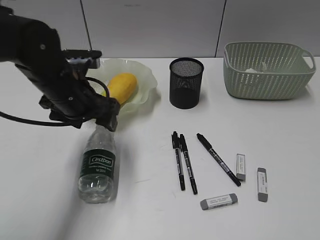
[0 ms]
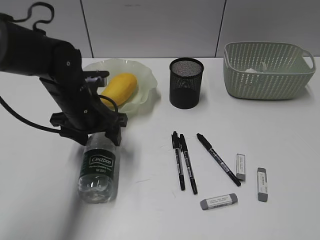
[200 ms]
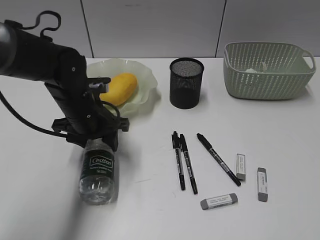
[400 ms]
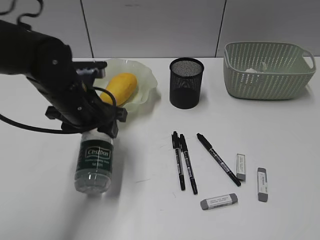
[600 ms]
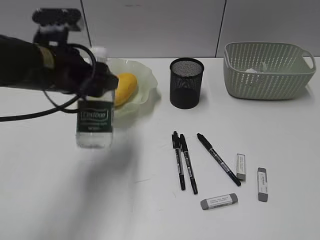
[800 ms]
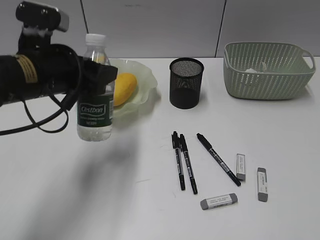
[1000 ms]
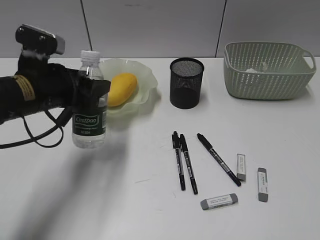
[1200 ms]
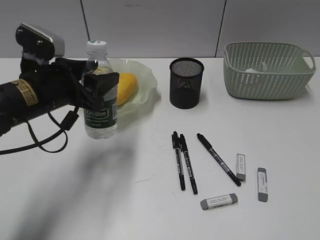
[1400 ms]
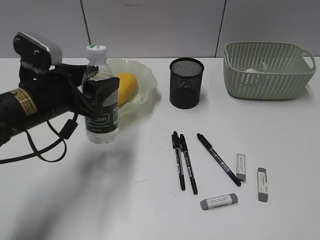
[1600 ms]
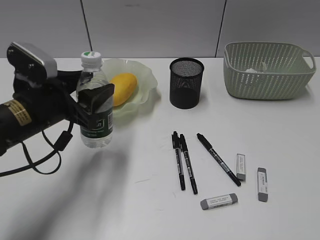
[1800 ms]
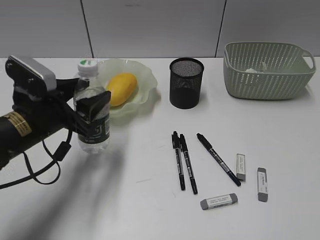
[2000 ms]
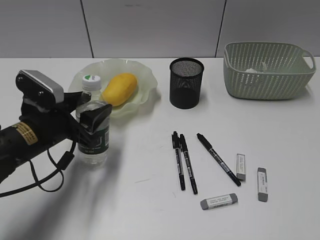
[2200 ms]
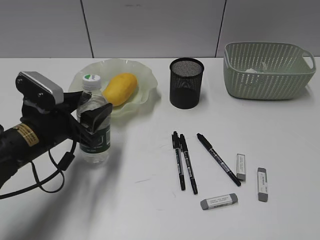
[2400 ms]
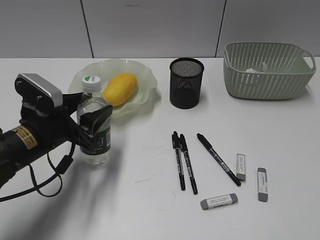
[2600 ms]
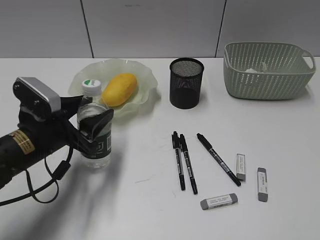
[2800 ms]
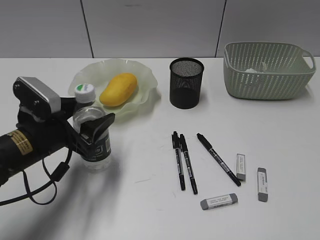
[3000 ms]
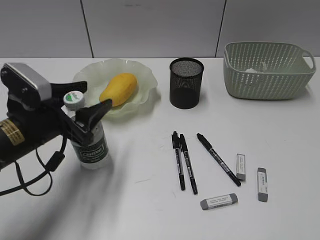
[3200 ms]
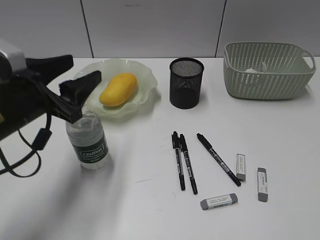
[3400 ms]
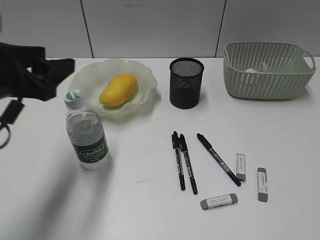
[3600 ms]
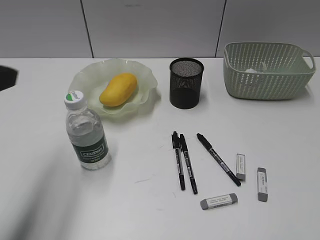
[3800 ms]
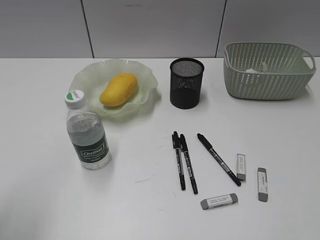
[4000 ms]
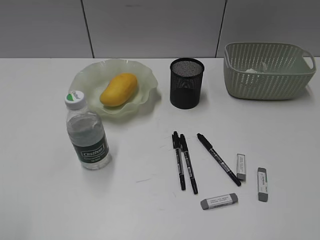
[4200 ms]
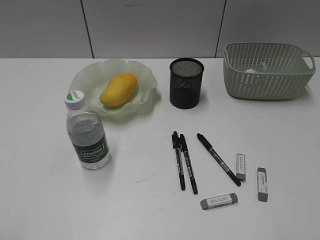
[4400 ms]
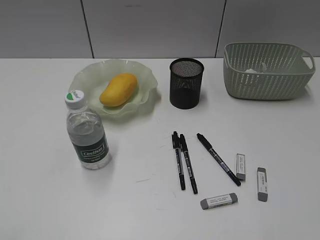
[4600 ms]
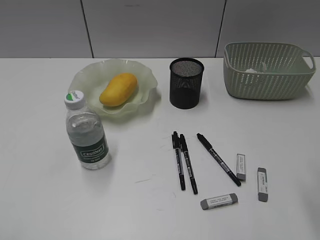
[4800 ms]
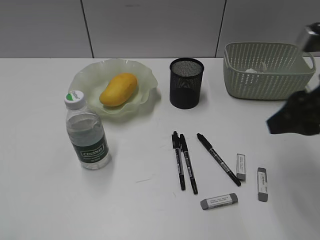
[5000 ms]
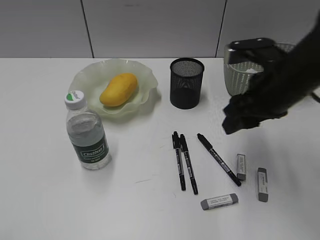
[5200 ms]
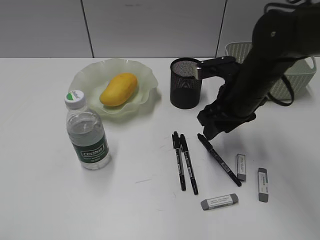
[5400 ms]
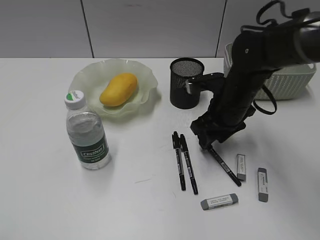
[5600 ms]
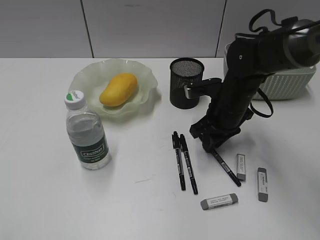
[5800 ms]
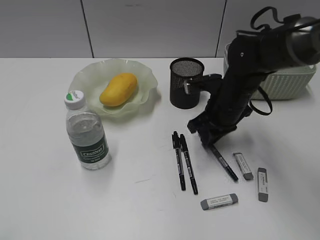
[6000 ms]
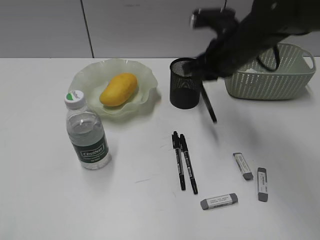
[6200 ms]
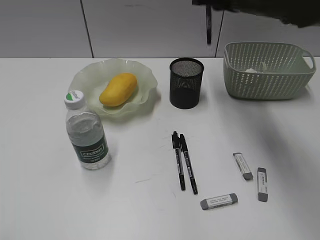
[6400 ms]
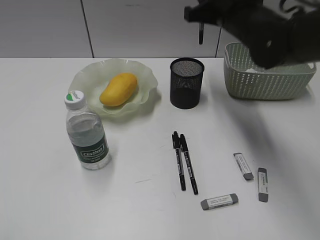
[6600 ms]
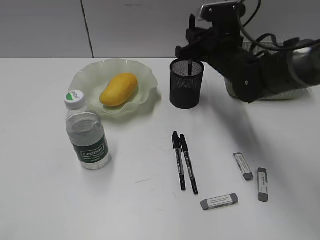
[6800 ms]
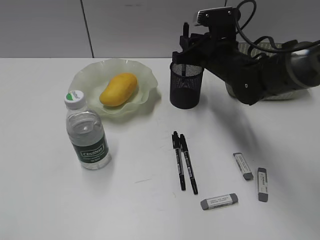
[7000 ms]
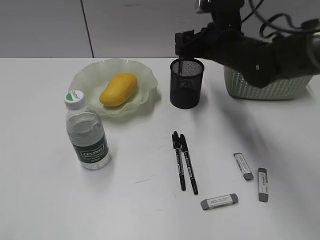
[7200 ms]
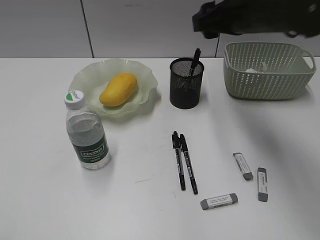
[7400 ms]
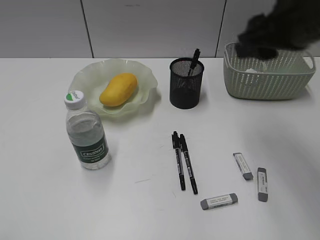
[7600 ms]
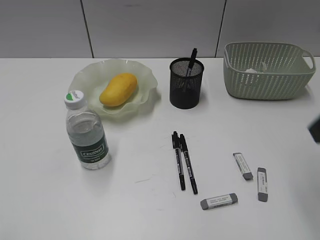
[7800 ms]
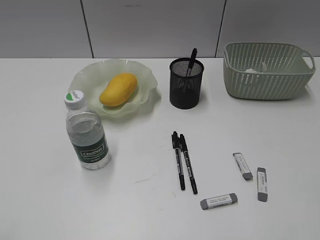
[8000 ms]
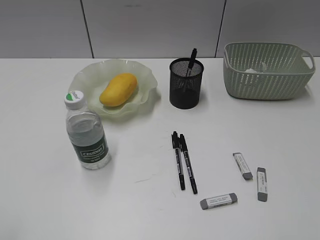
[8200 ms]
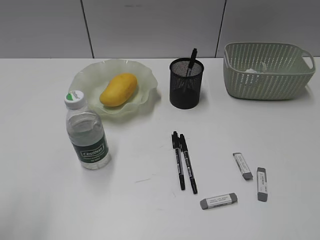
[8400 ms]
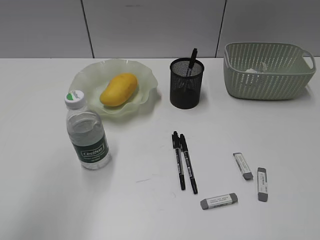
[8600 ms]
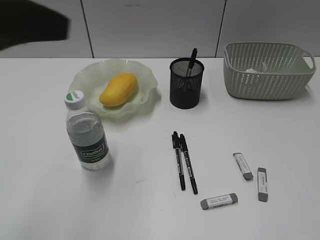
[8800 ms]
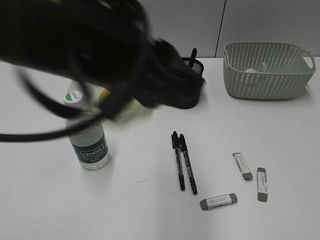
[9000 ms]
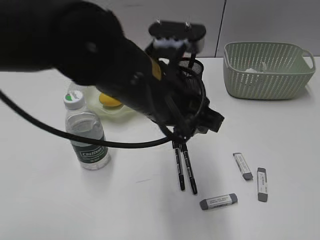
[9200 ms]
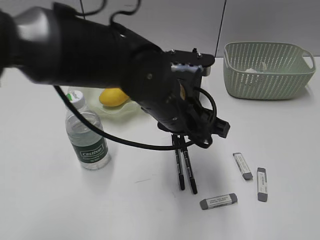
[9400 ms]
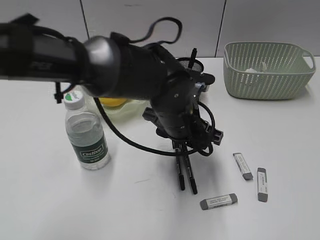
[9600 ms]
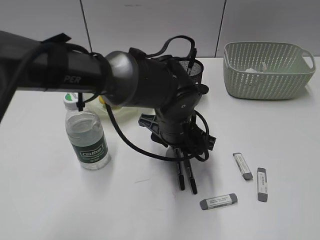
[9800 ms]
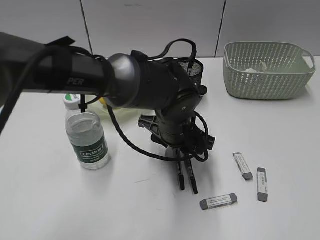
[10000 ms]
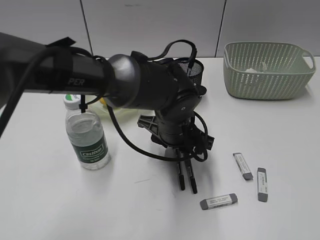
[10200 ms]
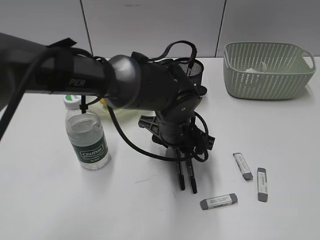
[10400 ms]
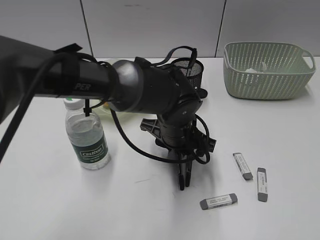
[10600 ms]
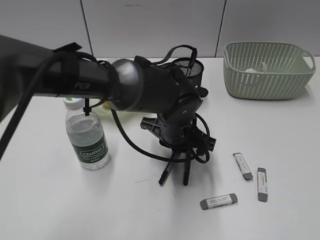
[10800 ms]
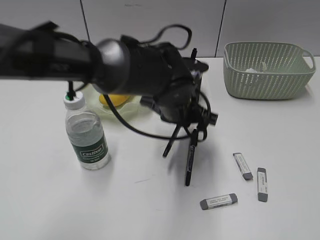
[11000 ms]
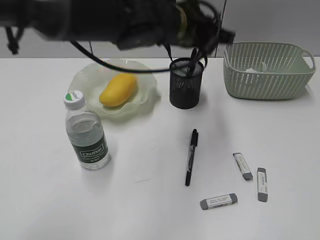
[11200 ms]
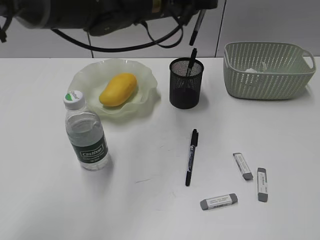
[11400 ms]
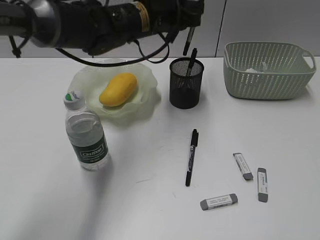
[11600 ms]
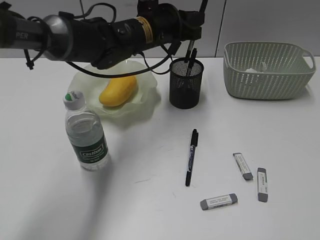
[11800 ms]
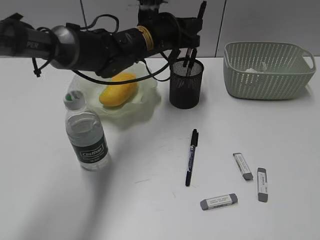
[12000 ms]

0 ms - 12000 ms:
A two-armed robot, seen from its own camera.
Step, 600 ms - 3200 ms: Stand the bottle with left gripper.
Step, 3400 ms - 5800 ms: Grasp the black pen with right gripper.
Step, 6000 ms - 7200 ms: Place the black pen in pen holder with right gripper.
Step, 7400 ms - 10800 ms: Grasp the black pen with left gripper.
0 ms - 1600 ms: The left gripper moves up and down over about 10 cm, changing direction 2 times, and closes its fingers.
1600 ms - 3000 ms: The left gripper heads downward, covering roughly 5 cm.
3000 ms - 4400 ms: The left gripper is displaced backward, upward and to the left by approximately 35 cm.
4400 ms - 6000 ms: The right gripper travels forward, to the left and downward by about 40 cm.
6000 ms - 7600 ms: The right gripper swings up and down, roughly 20 cm each way, with 2 reversals, and opens up.
7600 ms - 9000 ms: The right gripper travels backward and to the right by some 30 cm, while the left gripper shifts some 30 cm to the right and forward.
9000 ms - 10400 ms: The left gripper moves downward, forward and to the right, about 25 cm.
10400 ms - 12000 ms: The left gripper shifts roughly 15 cm forward and upward, and closes its fingers.

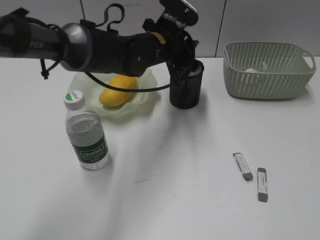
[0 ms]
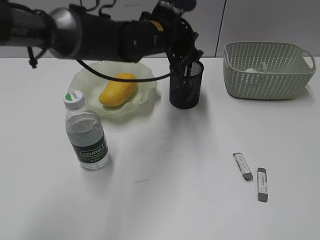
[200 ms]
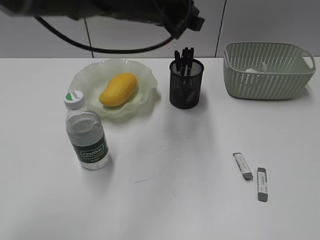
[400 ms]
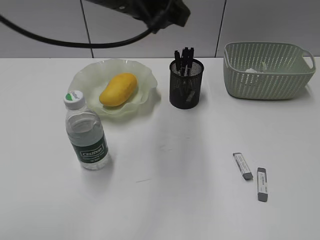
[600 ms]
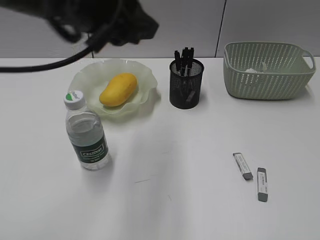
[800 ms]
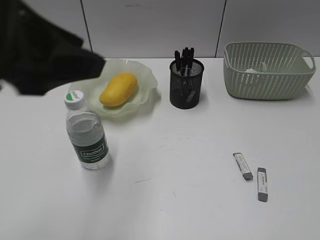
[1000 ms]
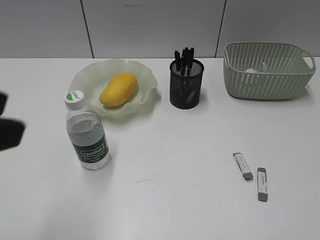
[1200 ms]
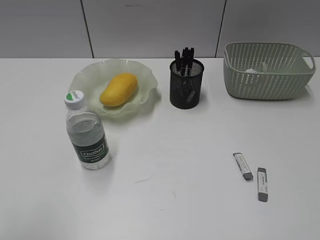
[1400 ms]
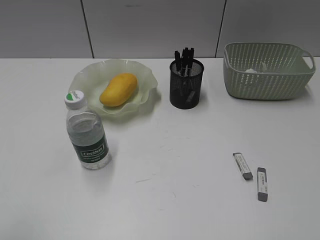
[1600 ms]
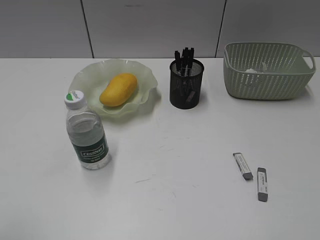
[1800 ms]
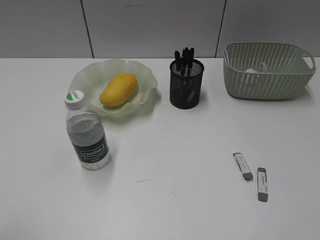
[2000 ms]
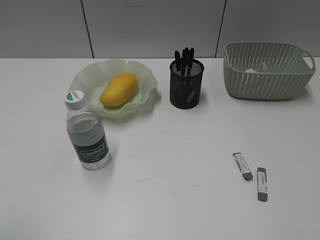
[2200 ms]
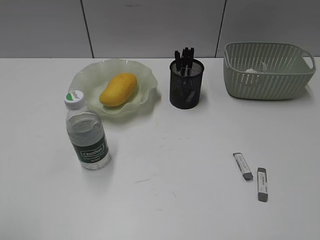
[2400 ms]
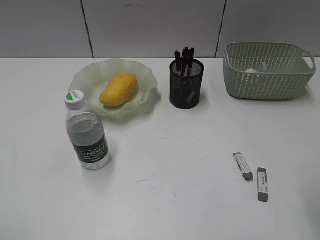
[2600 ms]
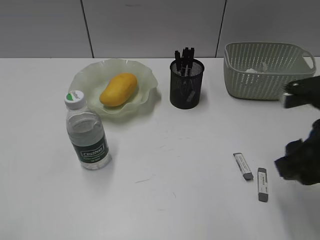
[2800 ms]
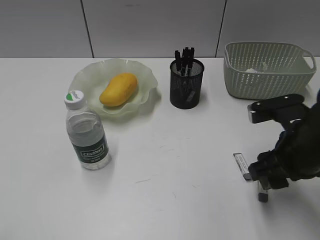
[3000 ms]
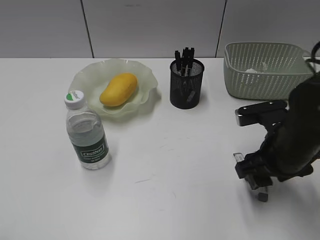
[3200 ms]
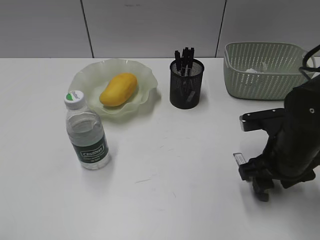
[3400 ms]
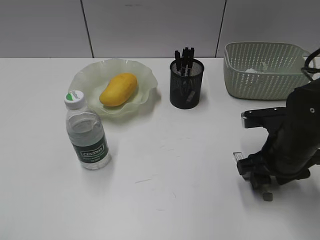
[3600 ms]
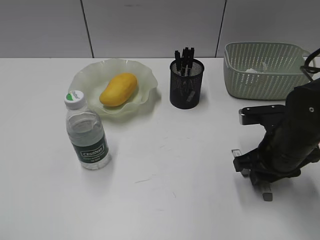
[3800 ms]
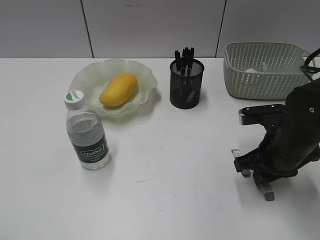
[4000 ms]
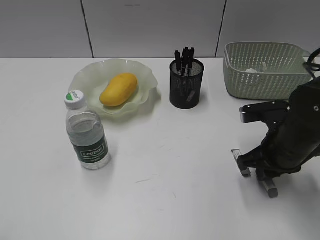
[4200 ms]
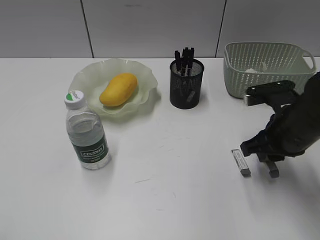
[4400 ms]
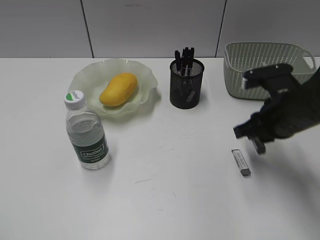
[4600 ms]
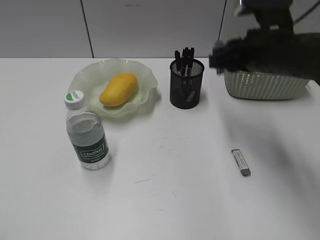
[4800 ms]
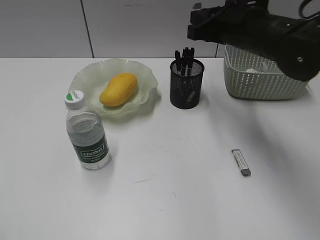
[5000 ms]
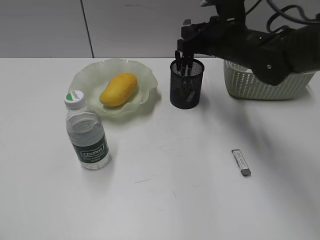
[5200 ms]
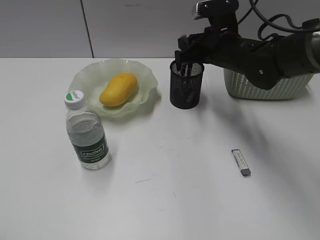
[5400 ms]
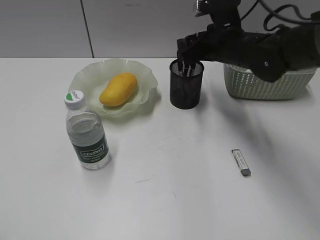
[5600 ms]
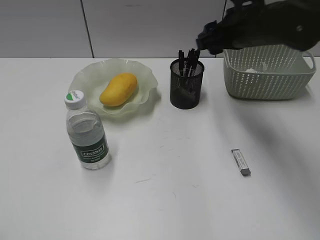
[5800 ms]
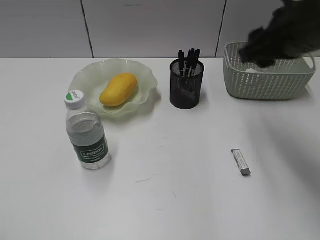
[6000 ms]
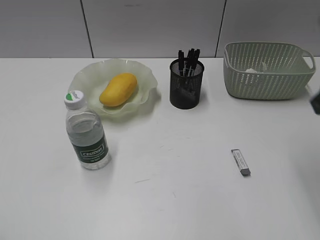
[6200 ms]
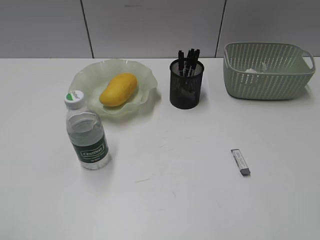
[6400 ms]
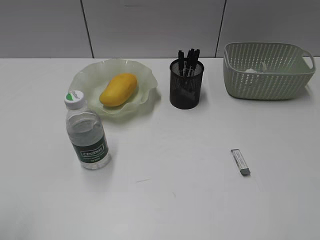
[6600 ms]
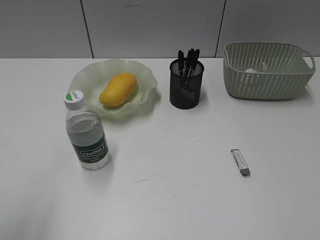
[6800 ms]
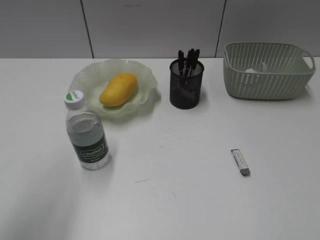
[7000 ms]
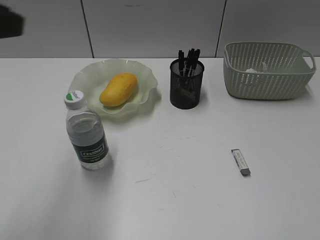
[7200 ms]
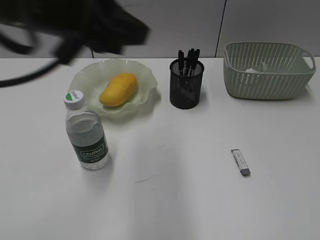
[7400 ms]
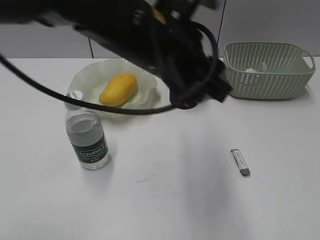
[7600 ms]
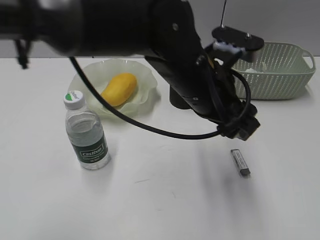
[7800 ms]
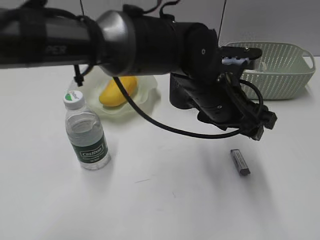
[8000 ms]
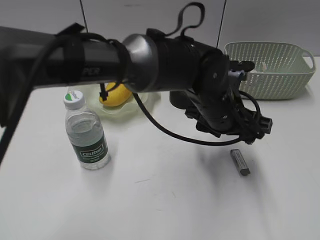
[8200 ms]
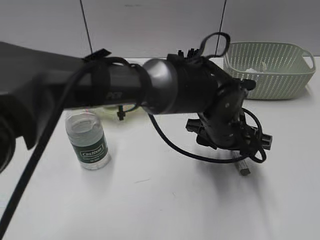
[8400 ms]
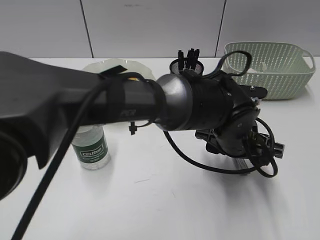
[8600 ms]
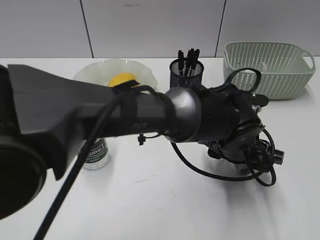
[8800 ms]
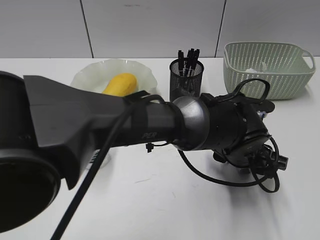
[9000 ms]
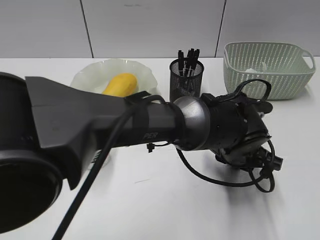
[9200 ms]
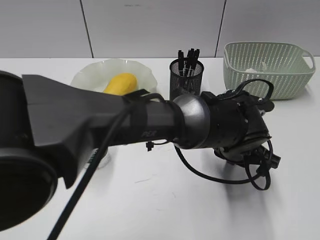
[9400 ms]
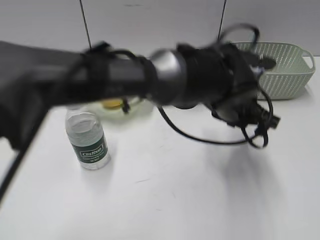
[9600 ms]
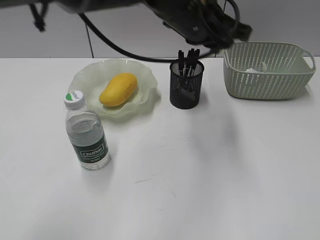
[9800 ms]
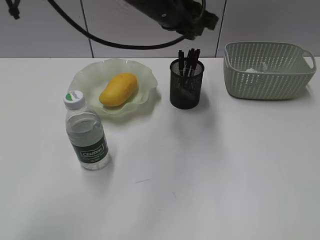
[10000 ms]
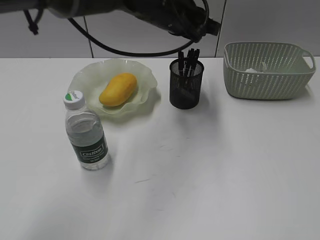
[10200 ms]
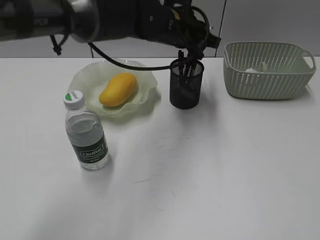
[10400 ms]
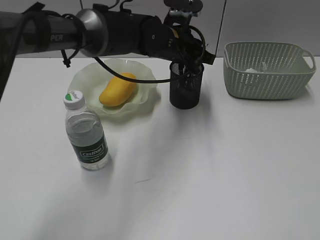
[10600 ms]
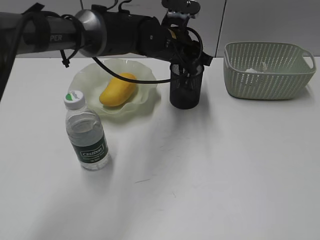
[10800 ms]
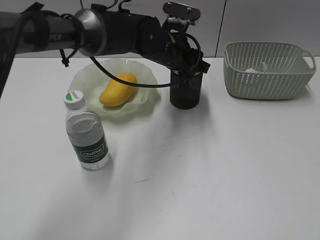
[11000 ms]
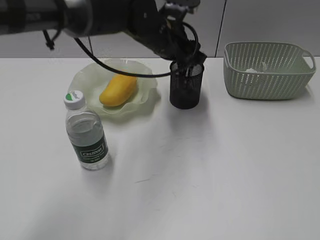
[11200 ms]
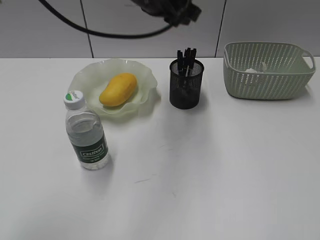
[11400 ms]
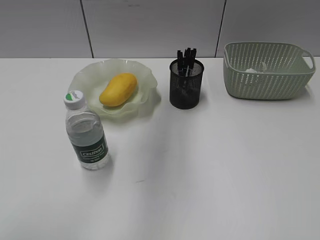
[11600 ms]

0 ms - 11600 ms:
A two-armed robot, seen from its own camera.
Step, 400 ms - 4000 ms: Grasp the eraser with right gripper.
Step, 4200 ms - 5600 ms: Place the eraser in pen holder with right gripper.
Step, 5800 ms - 9200 ms: Grasp the eraser with left gripper.
Step, 9400 ms - 11200 ms: Place the eraser in pen holder with left gripper.
0 ms - 1400 ms: The left gripper moves backward and to the left, about 40 cm.
1400 ms - 2800 ms: The right gripper travels forward and to the left by roughly 20 cm.
2800 ms - 4400 ms: The right gripper moves forward and downward, approximately 10 cm, and closes its fingers.
4400 ms - 5800 ms: The right gripper travels forward, upward and to the left by some 15 cm, and opens up.
5800 ms - 7200 ms: The left gripper moves forward and to the right, some 20 cm; the right gripper goes approximately 40 cm backward and to the right.
7200 ms - 8800 ms: The left gripper travels to the right and downward by some 40 cm, and opens its fingers.
8800 ms - 10200 ms: The left gripper is displaced upward, forward and to the left by approximately 25 cm, and closes up.
10200 ms - 11600 ms: The left gripper shifts about 15 cm upward, to the left and backward.
